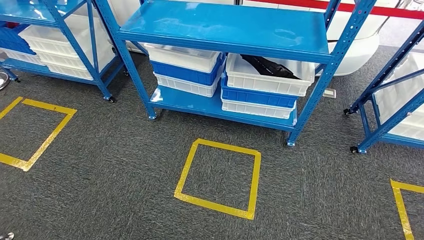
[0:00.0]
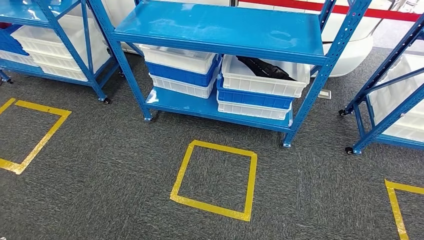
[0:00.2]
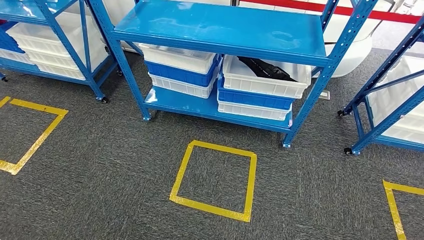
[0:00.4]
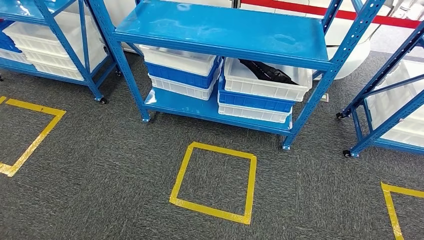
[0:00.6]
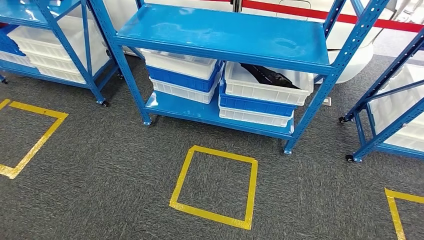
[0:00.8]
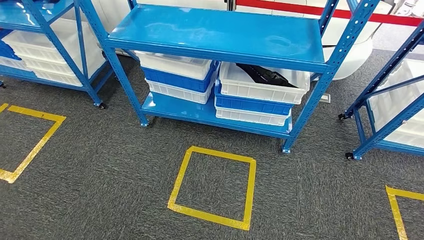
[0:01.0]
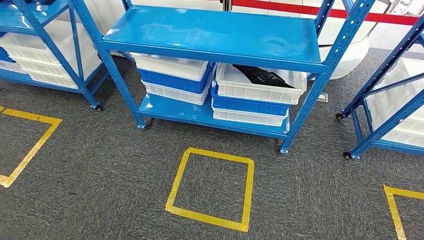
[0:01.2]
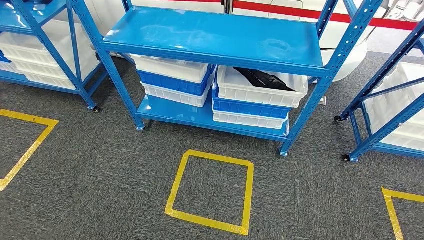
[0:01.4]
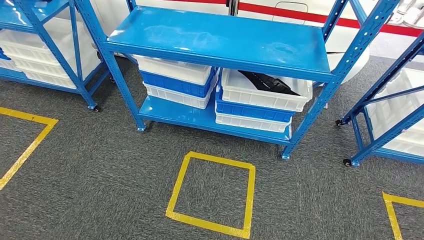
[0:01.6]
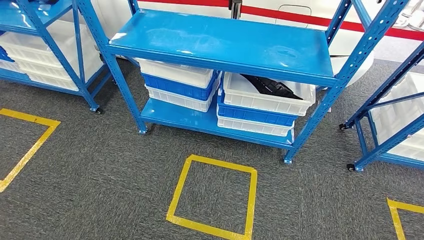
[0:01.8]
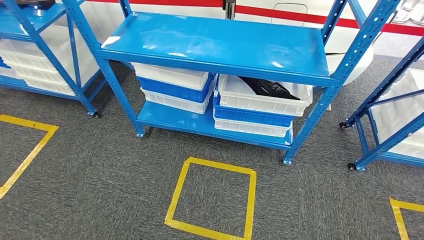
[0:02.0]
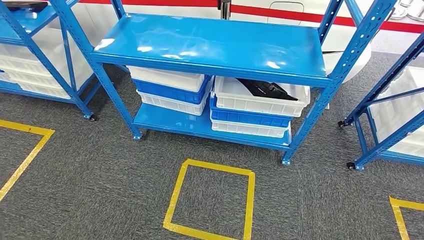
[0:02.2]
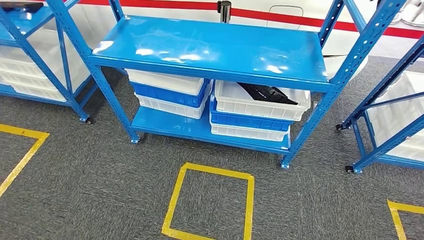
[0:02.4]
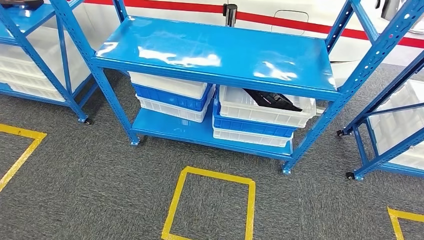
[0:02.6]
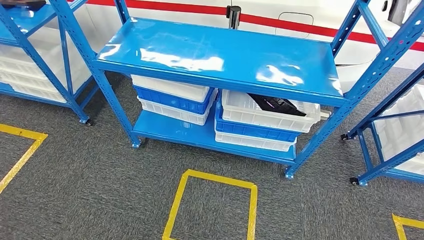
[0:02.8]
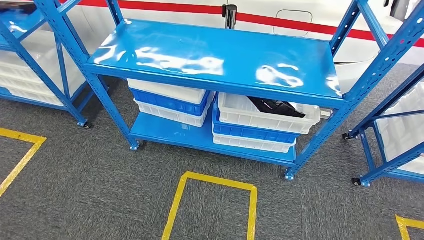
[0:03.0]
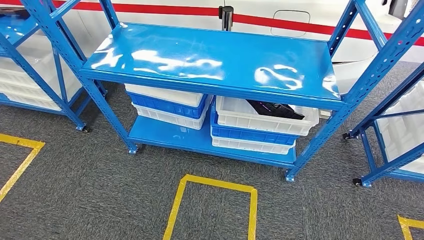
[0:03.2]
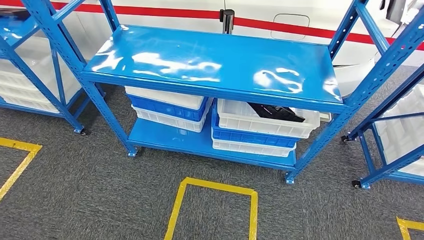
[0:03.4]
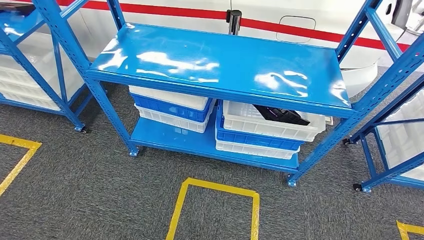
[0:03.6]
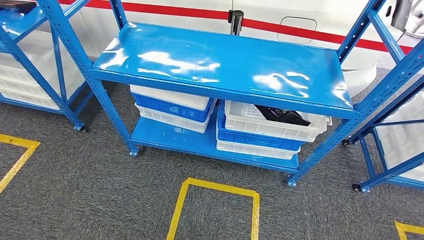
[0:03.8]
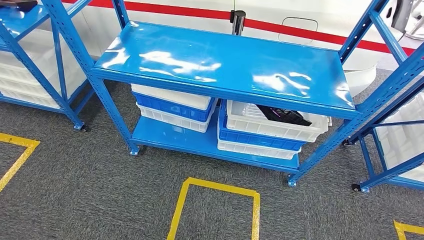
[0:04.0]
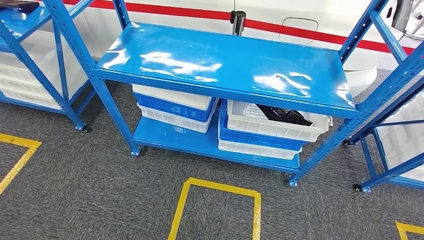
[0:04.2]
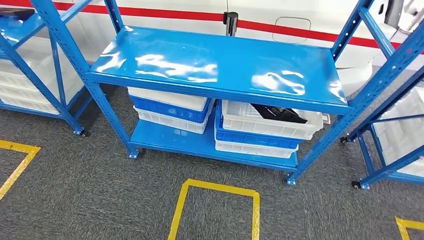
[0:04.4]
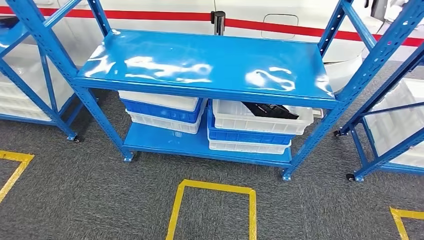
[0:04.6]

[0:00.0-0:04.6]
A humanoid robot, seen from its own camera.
Step, 0:00.0 to 0:04.4: Move to the initial position of the shelf.
